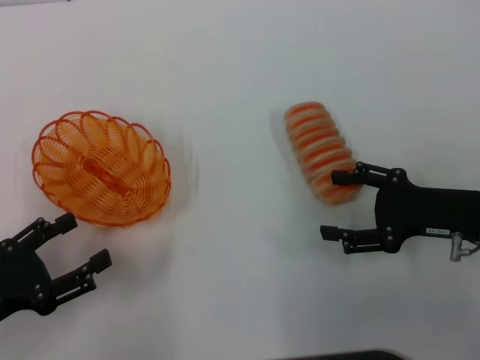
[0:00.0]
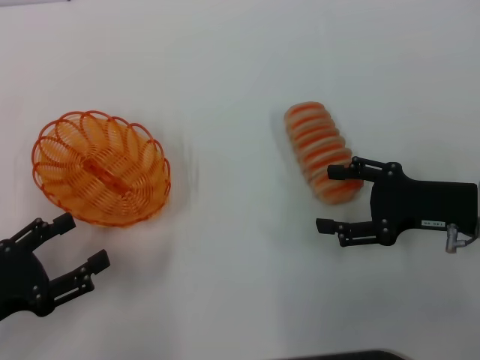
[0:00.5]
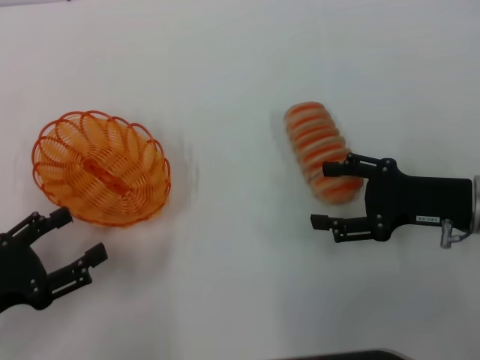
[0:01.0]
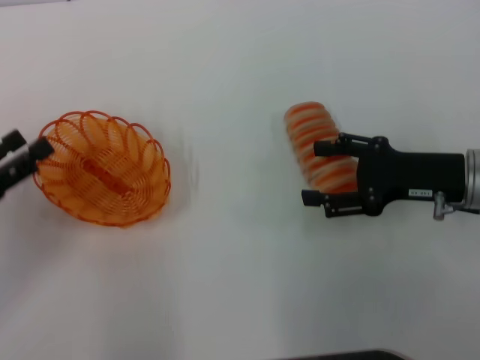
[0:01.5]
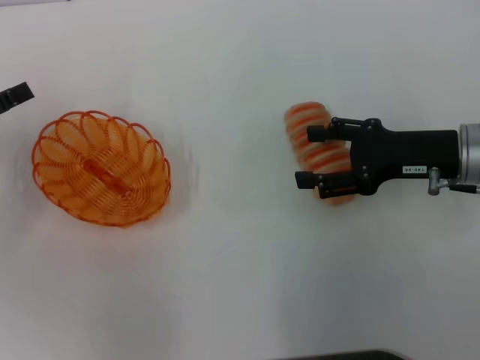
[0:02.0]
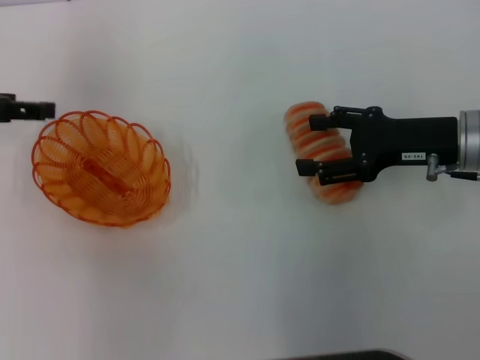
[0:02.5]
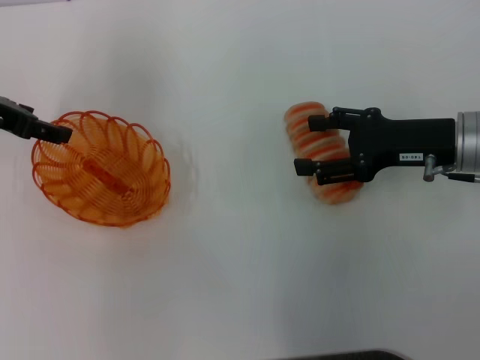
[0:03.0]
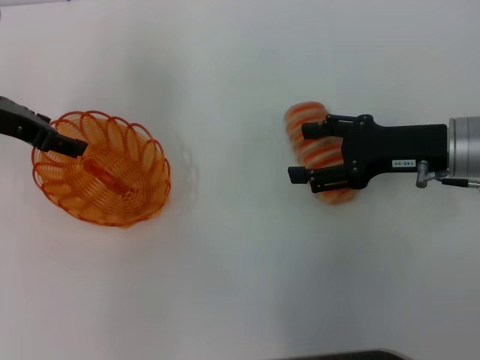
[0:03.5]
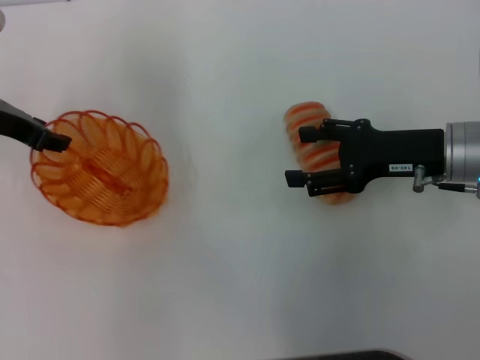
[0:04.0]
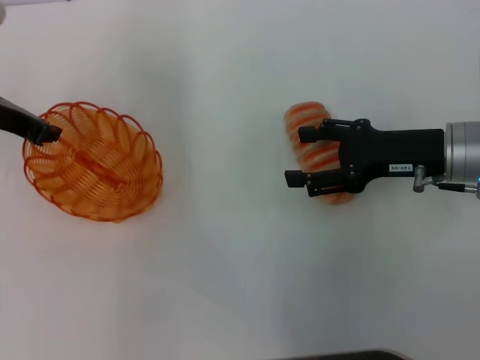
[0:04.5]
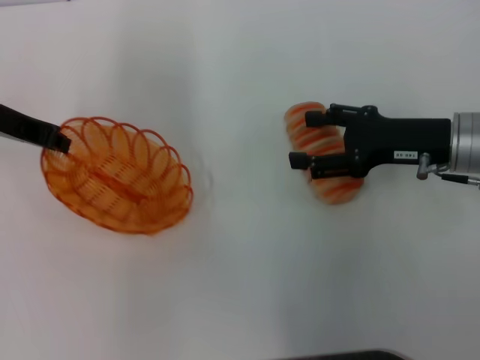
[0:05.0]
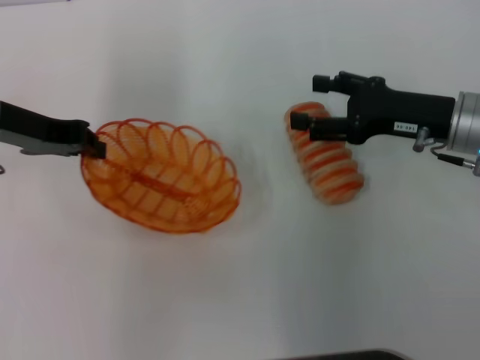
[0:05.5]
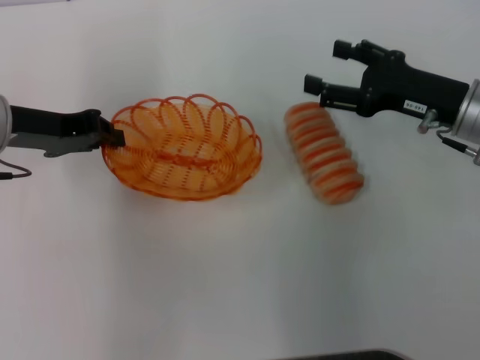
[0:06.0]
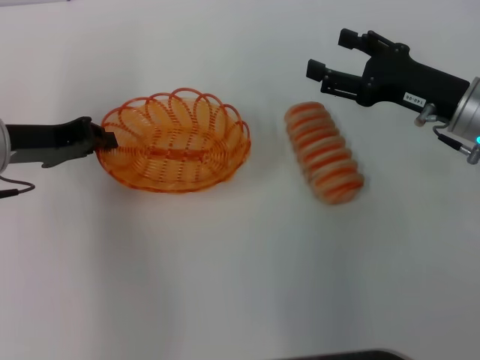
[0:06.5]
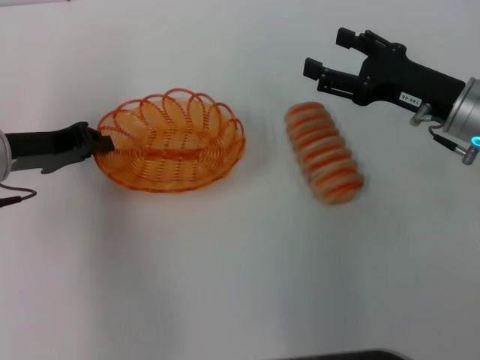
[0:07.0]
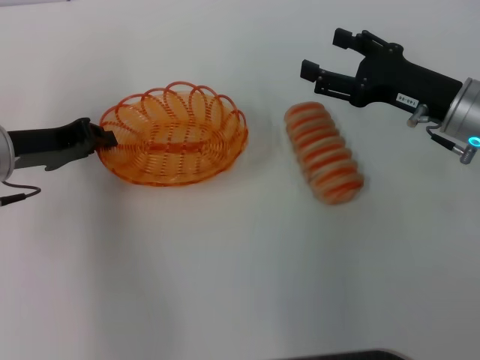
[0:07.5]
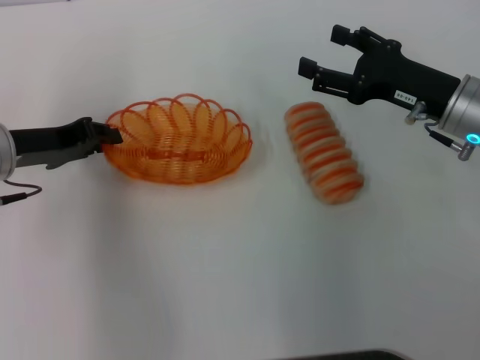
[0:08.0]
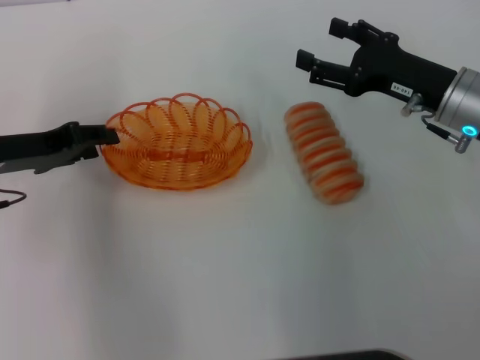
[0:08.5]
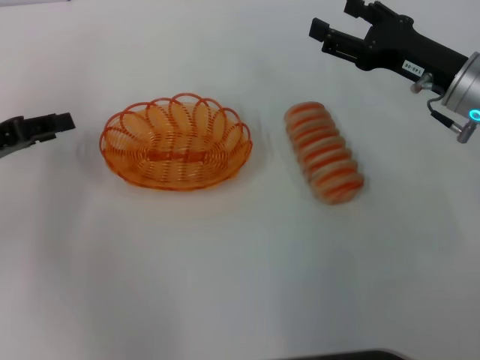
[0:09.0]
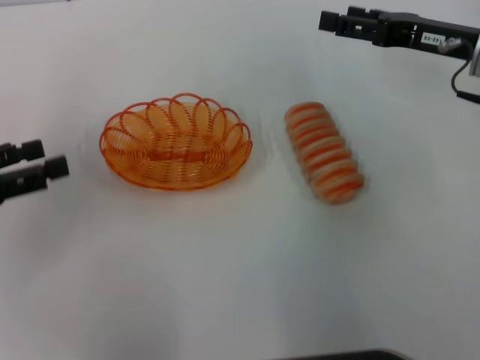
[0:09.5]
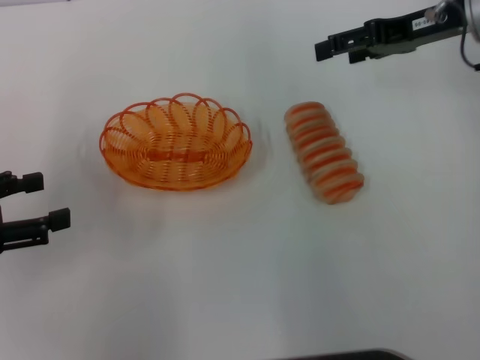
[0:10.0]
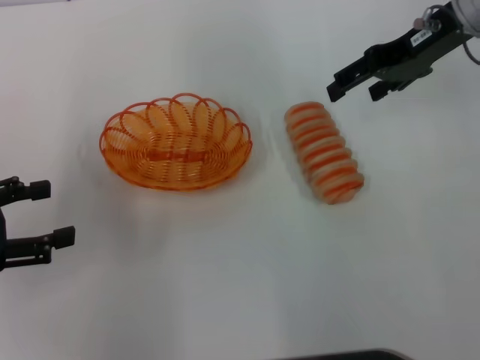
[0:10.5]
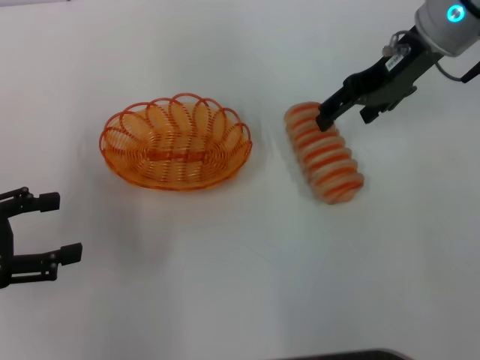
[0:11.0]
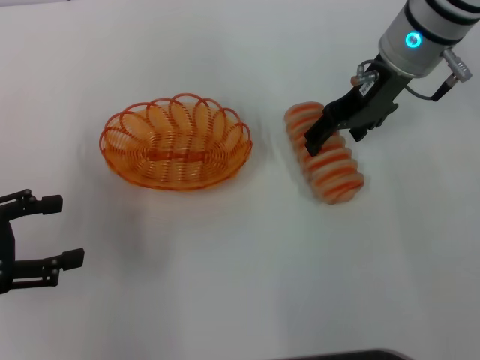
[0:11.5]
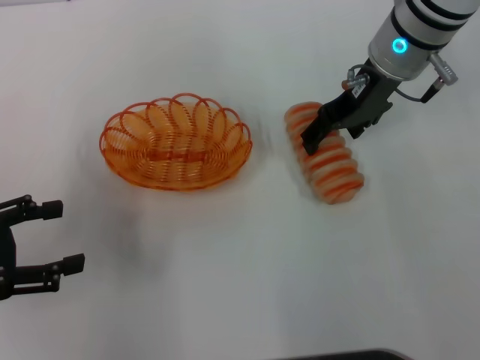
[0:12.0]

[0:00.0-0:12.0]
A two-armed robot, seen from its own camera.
Step, 0:00.0 to 0:04.5: Pick up the basket with the left gripper.
Step, 0:05.0 to 0:08.5: Place the basket in the center of view with the left gripper.
0:00.0 to 0:02.0: The right gripper shifts approximately 5 cm forward. Meanwhile the left gripper heads forward and upward, covering roughly 15 cm.
0:02.0 to 0:04.0: The left gripper heads to the right and forward, covering roughly 10 cm.
0:04.0 to 0:06.0: The left gripper closes up.
0:06.0 to 0:08.0: The grippers stay close to where they were, moving slightly.
0:08.0 to 0:10.0: The right gripper heads upward and forward, covering roughly 15 cm. Meanwhile the left gripper goes about 15 cm backward and to the left, and opens its fingers.
0:10.0 to 0:12.0: The right gripper goes roughly 10 cm to the left.

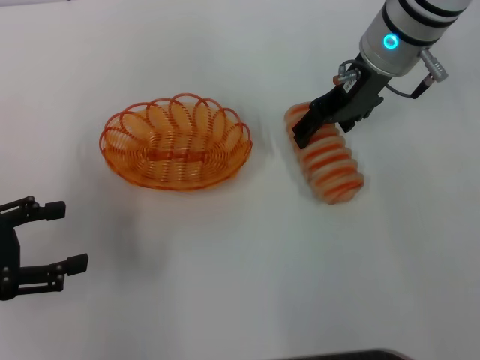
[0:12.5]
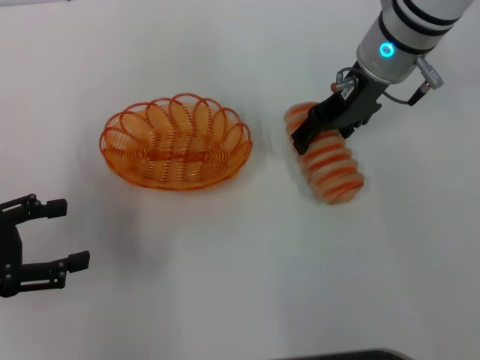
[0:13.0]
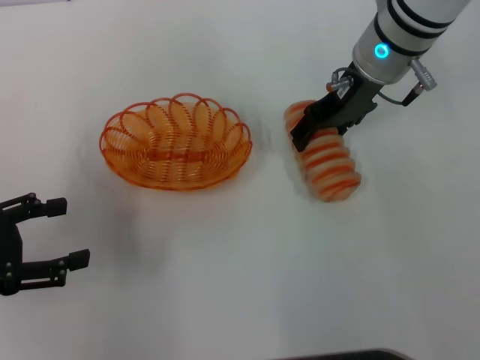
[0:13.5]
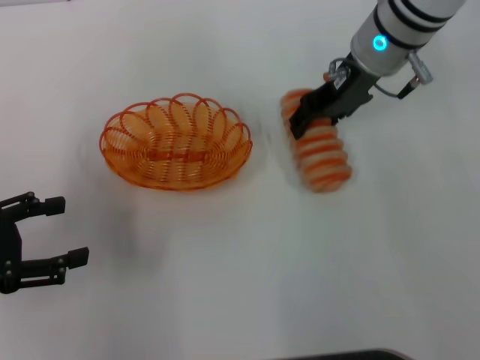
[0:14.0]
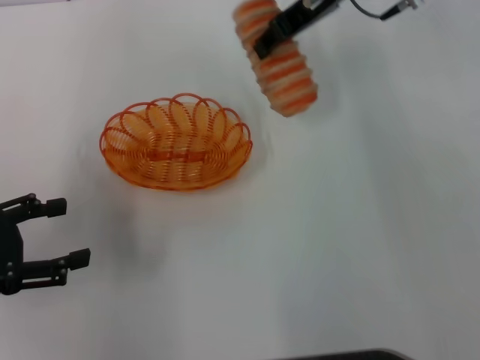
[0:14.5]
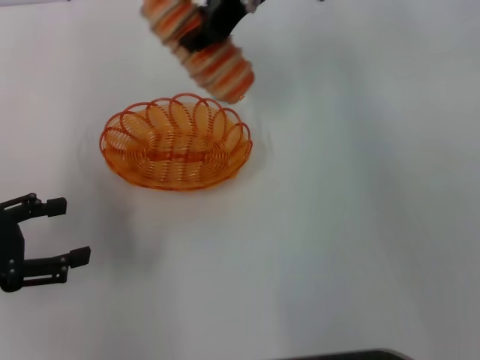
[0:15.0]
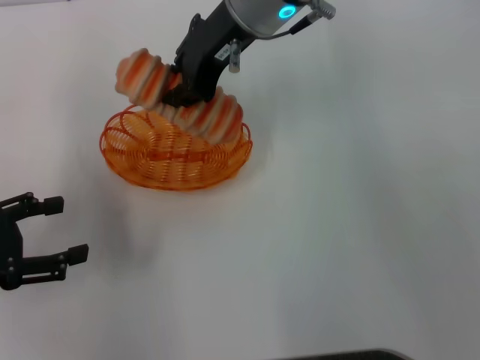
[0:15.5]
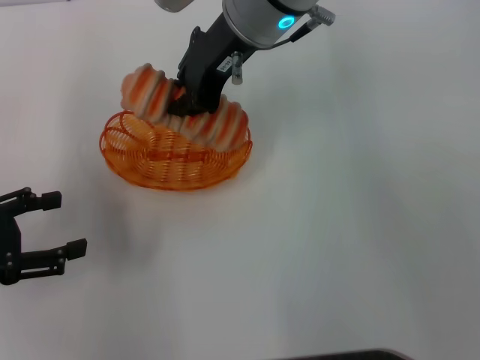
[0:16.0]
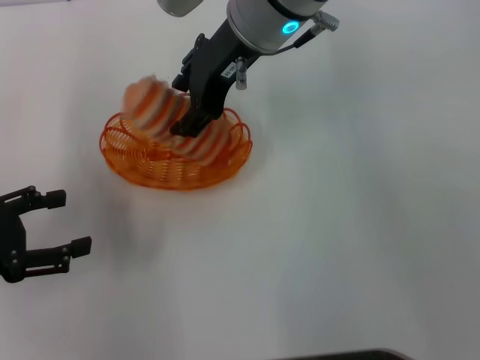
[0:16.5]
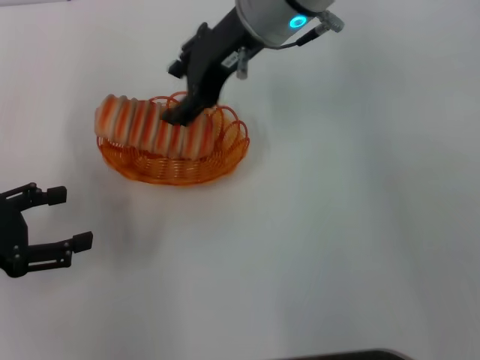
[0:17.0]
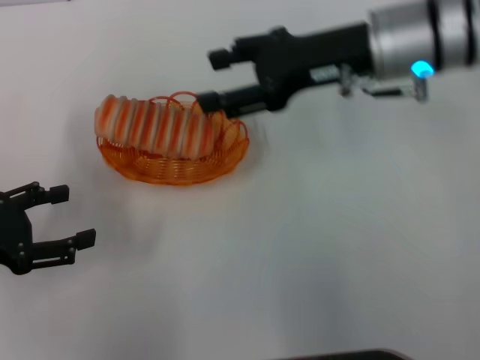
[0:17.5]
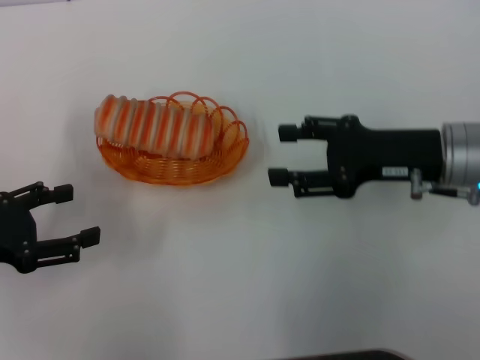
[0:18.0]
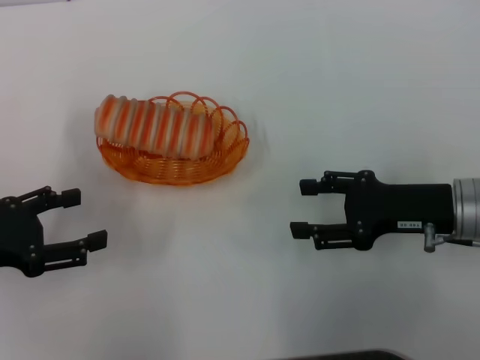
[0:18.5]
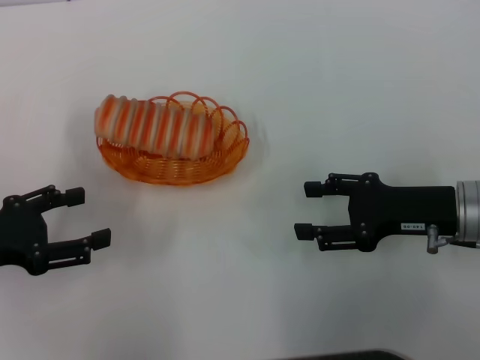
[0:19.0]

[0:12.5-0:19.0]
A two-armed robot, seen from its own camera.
Step, 0:14.5 to 0:16.5: Place the long bread into the basket with the right gripper.
0:12.5 to 0:14.5: The right gripper is displaced upward by approximately 5 cm, and closes up.
0:14.5 to 0:17.0: The right gripper shifts roughly 10 cm to the left, and opens up.
0:17.0 to 0:19.0: The right gripper travels to the right, downward and backward by roughly 30 cm.

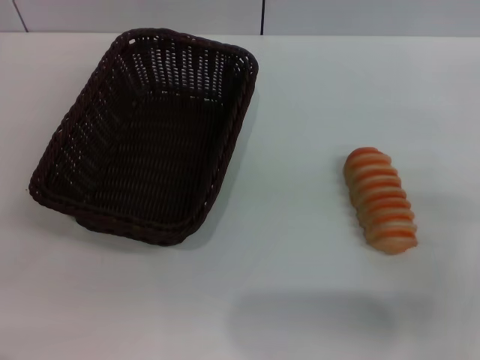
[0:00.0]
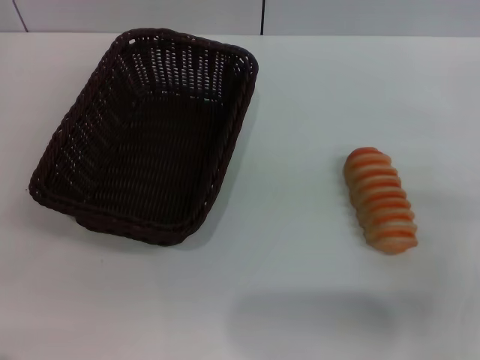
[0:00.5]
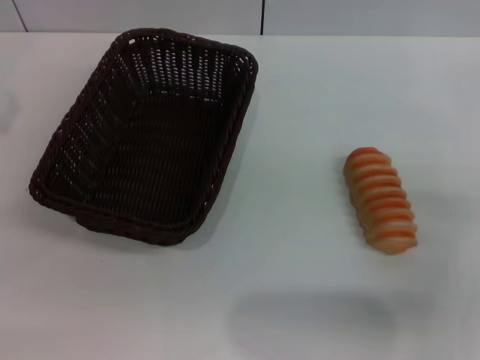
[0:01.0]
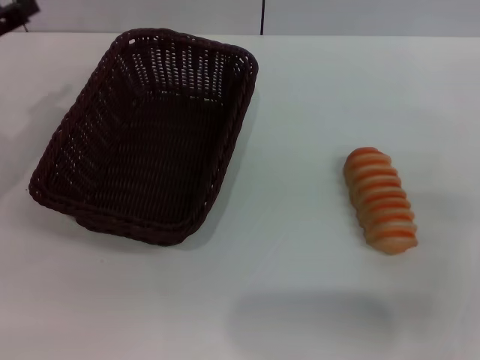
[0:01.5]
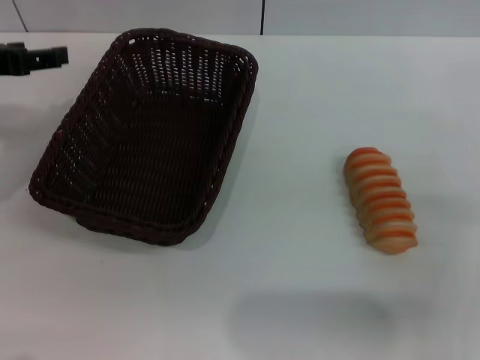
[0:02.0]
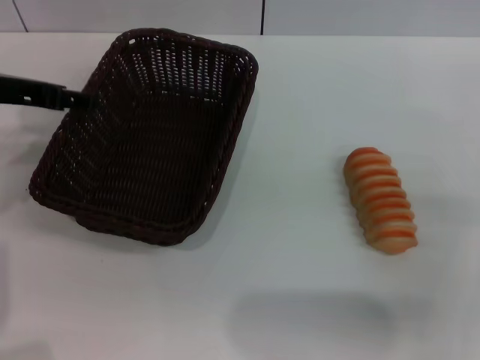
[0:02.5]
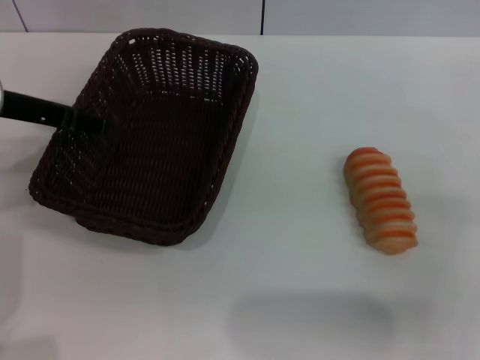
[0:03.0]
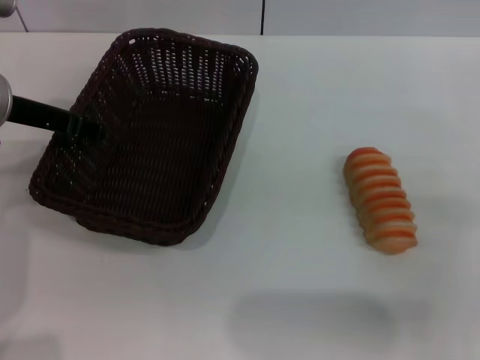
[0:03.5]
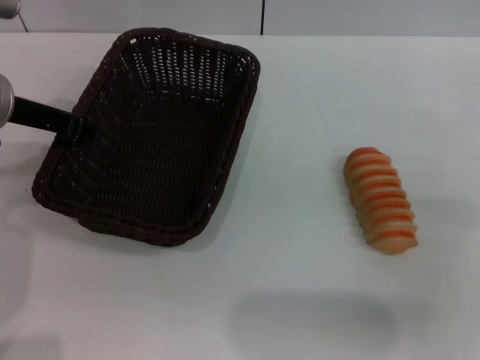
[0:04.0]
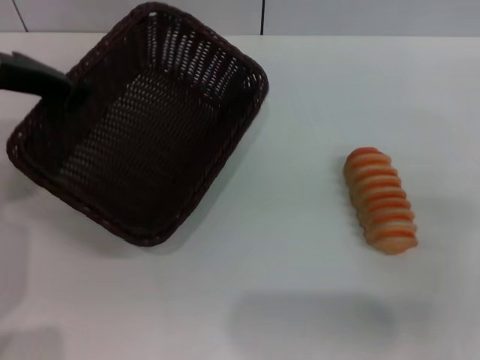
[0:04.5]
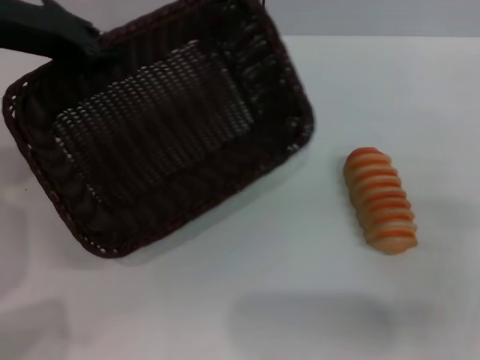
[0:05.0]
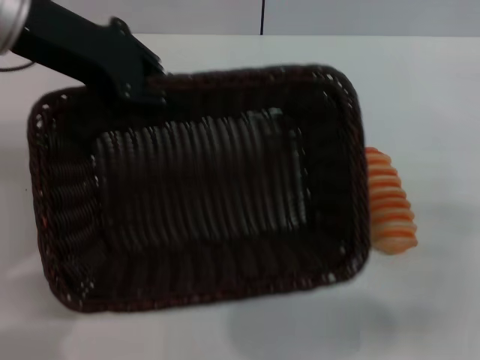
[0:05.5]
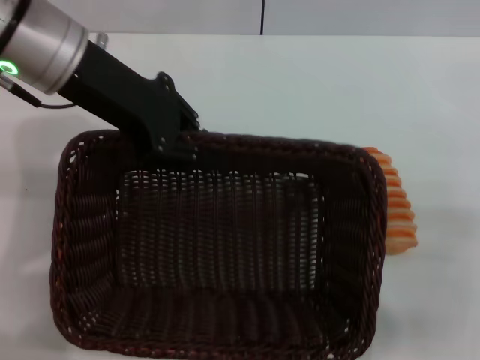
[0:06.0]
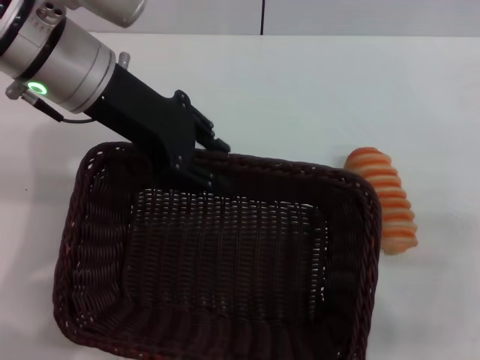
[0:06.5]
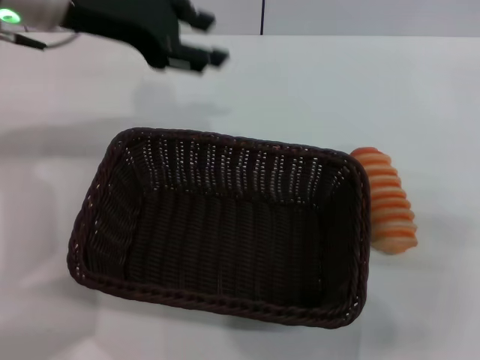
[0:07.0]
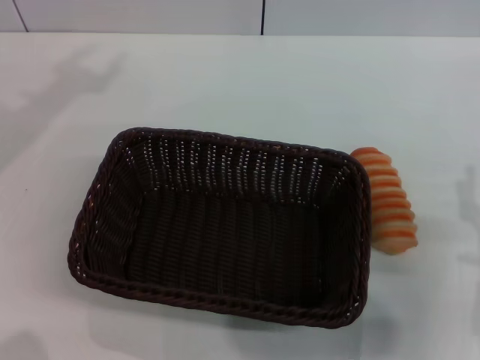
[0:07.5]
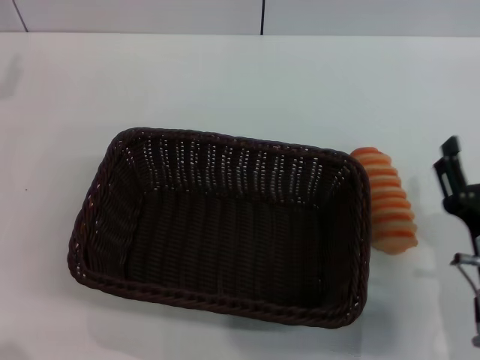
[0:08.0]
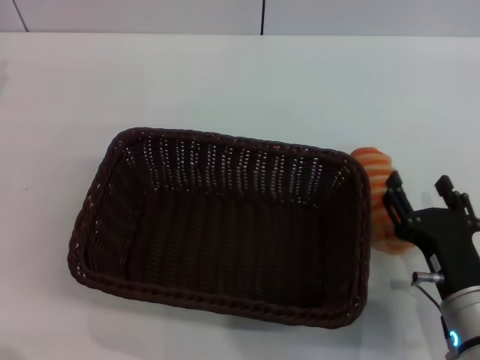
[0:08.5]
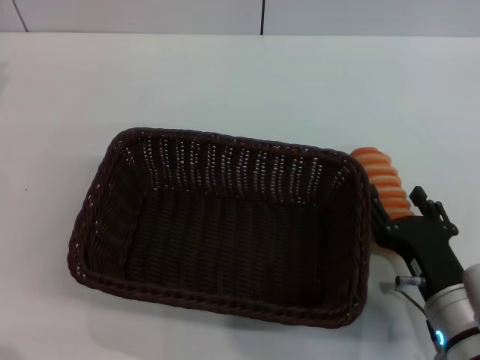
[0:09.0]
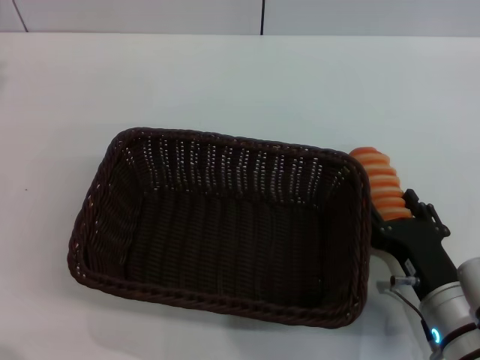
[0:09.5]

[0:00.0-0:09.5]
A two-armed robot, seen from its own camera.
Step, 0:00.0 to 0:03.5: Grasp the basket with the left gripper.
Step, 0:04.5 to 0:06.5: Place the basket in the center of the table with the left gripper.
0:00.0 to 0:02.0: The left gripper goes about 15 cm upward, to the right and forward.
0:02.0 to 0:04.0: The left gripper shifts approximately 5 cm to the right, and closes up.
0:04.0 to 0:05.5: The left gripper moves upward, roughly 10 cm.
0:05.5 to 0:07.5: The left gripper shifts roughly 10 cm to the left, and opens its fingers.
0:07.5 to 0:09.5: The right gripper heads downward and to the left, covering about 5 cm.
